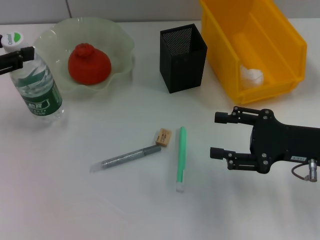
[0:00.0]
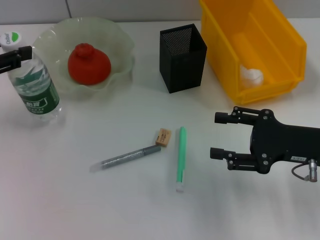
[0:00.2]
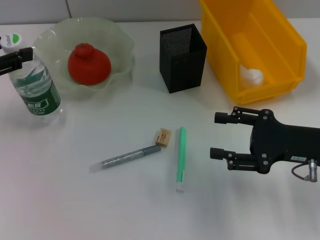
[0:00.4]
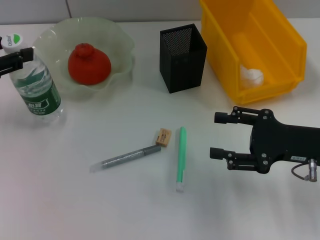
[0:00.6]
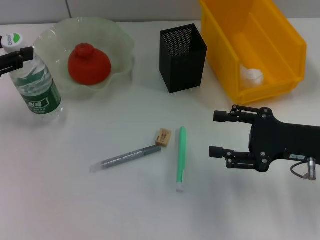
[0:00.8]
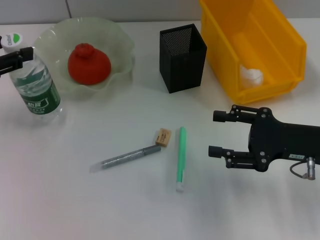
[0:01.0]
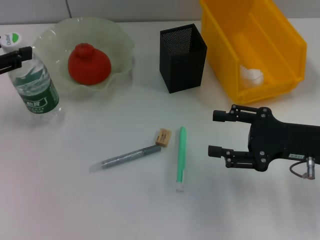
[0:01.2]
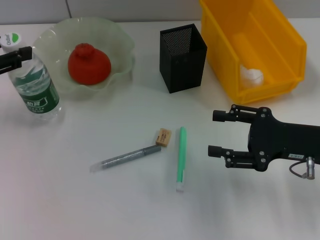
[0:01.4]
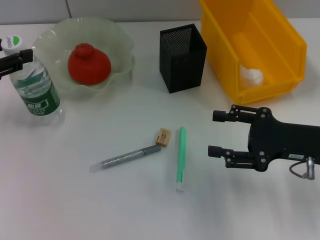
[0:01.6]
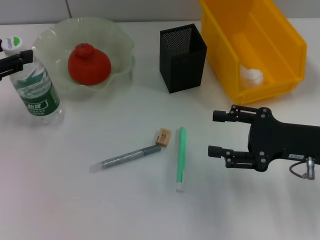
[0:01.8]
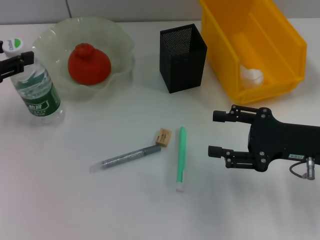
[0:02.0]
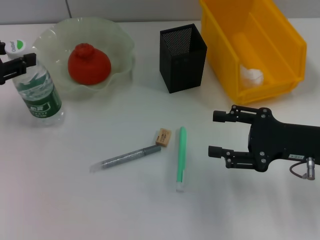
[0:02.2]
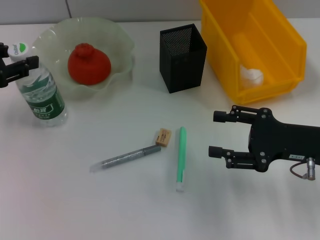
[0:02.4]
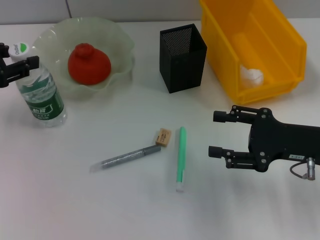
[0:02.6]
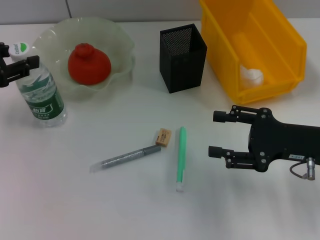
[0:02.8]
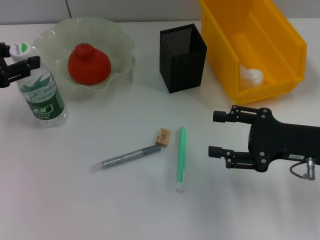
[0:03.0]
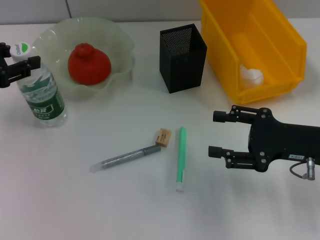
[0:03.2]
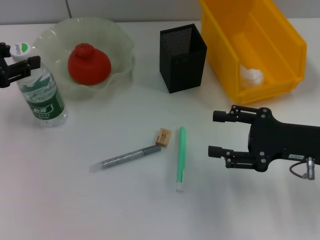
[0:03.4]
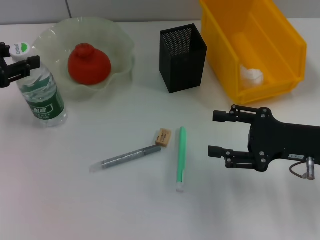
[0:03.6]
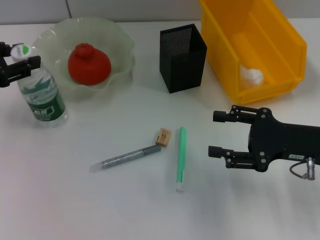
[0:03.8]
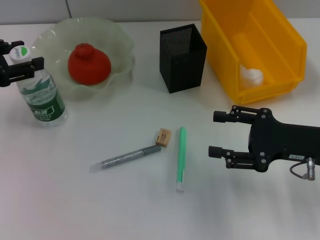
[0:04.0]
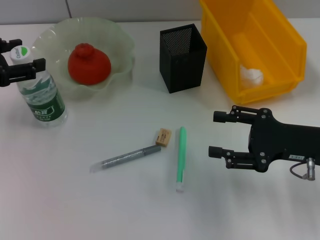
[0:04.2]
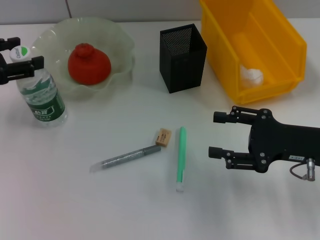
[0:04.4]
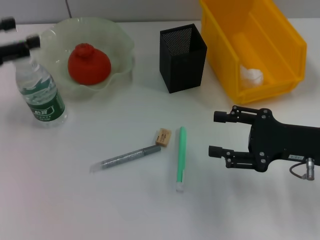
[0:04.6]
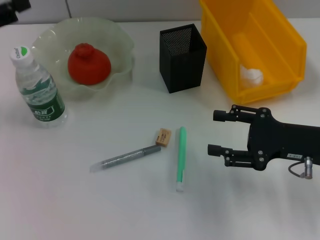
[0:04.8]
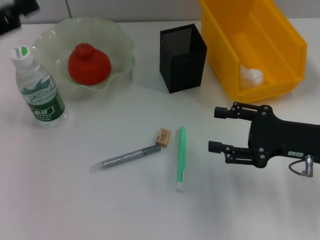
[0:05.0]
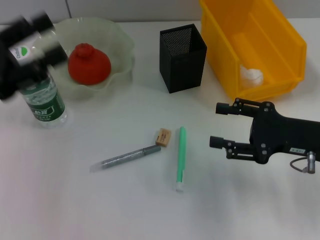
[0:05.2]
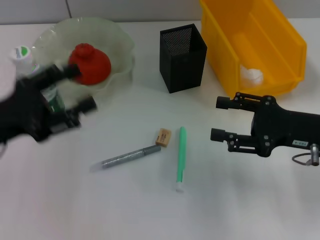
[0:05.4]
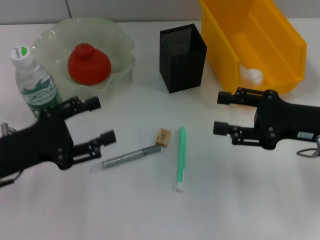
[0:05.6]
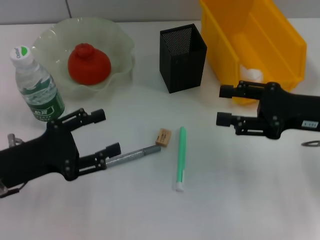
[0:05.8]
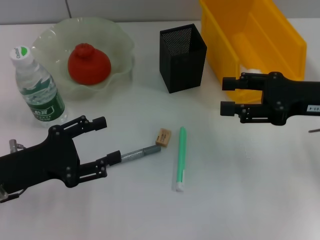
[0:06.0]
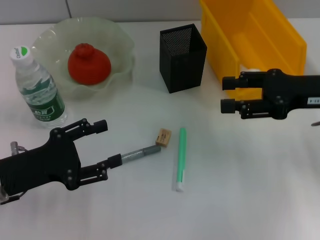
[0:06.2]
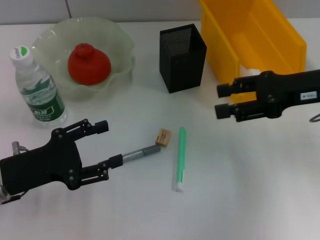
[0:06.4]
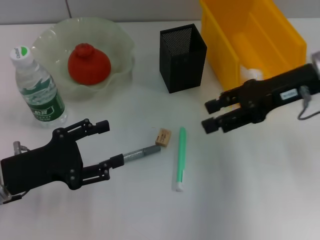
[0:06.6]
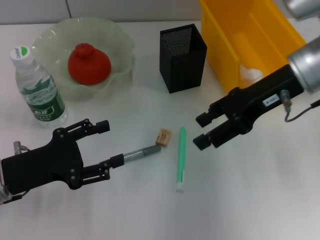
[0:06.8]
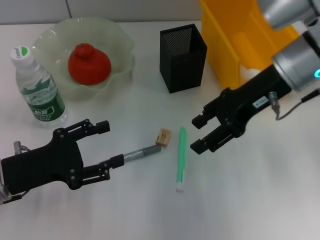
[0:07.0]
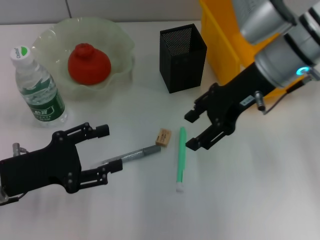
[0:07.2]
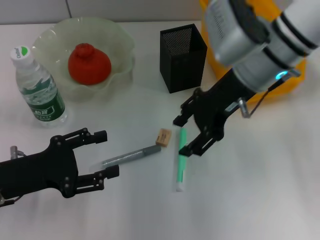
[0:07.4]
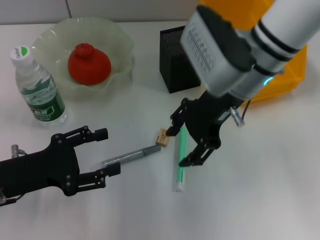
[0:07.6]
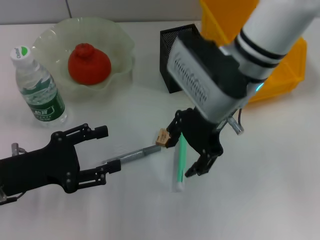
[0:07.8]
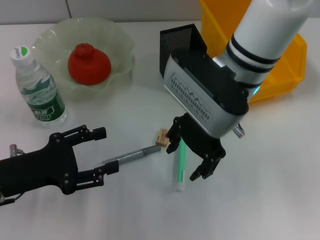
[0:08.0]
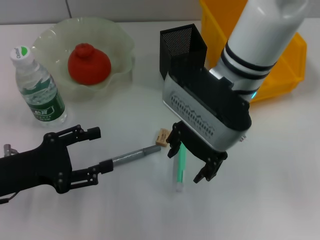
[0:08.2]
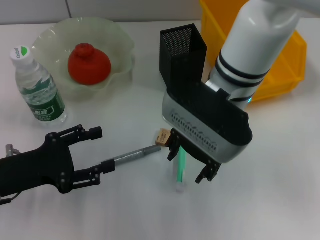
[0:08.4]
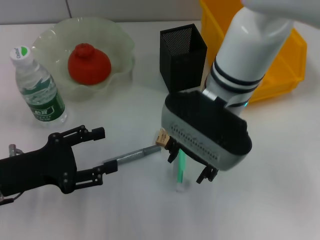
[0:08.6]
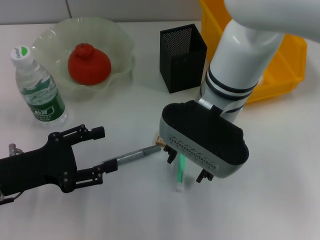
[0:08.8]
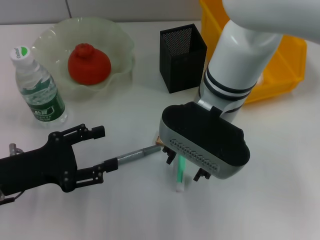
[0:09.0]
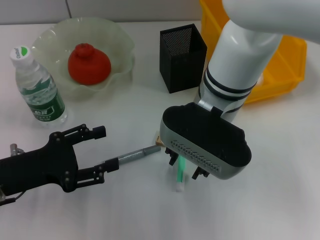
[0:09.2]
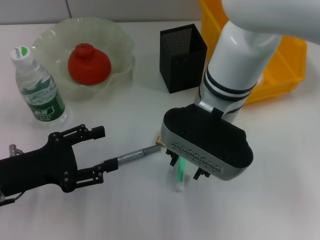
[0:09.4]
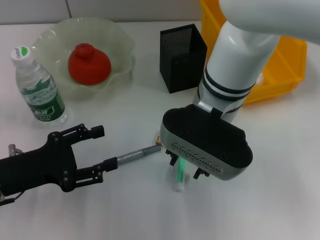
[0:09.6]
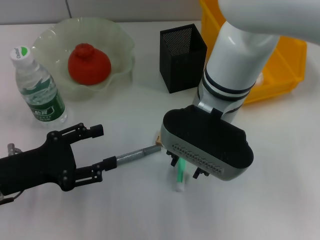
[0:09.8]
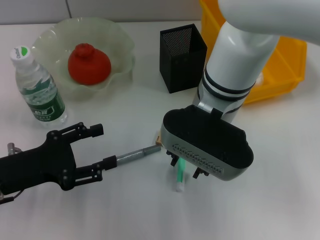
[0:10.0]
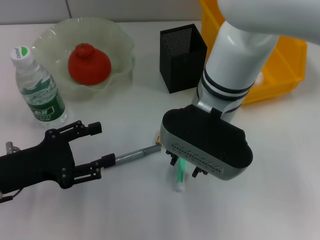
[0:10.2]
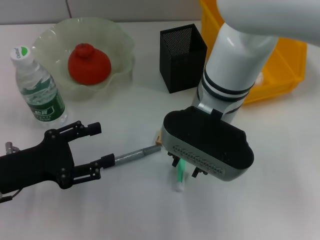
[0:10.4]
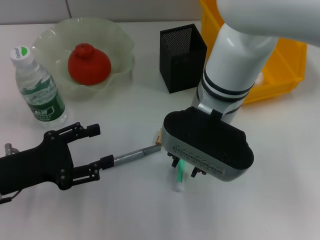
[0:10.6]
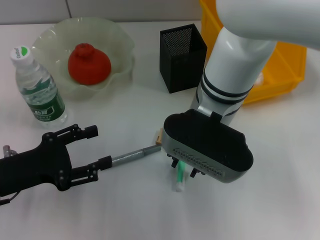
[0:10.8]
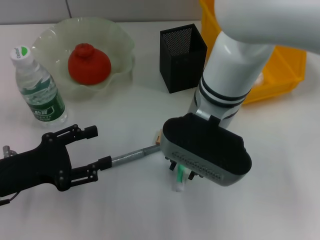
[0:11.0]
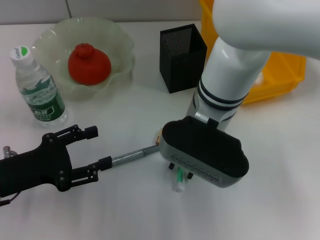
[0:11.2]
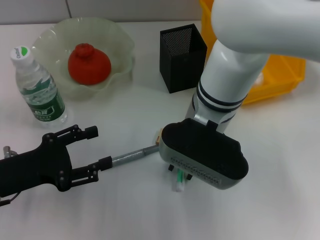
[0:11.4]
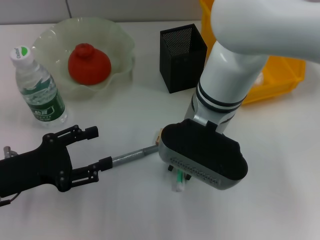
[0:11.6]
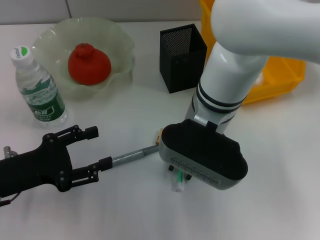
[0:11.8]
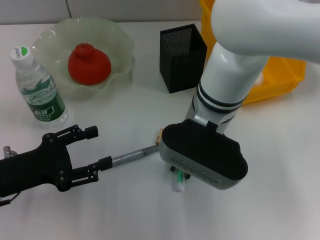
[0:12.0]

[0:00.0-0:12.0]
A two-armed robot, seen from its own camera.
Step, 0:00.0 to 0:04.2: Place the water bottle on the table with the left hand.
0:00.0 to 0:01.6: Both grippers stay about where they are.
0:01.6 to 0:03.0: The grippers stay close to where they were, moving slightly.
0:03.0 to 0:04.4: The left gripper opens.
0:04.4 to 0:06.0: The left gripper shifts approximately 15 cm downward, backward and to the right. Meanwhile the right gripper travels upward by roughly 5 cm.
0:06.0 to 0:07.6: The right gripper travels to the left by approximately 15 cm.
0:07.6 to 0:09.0: The right gripper shifts roughly 5 cm to the left.
0:09.0 to 0:10.4: Both grippers stay put.
0:10.4 to 0:12.0: The grippers move only a little.

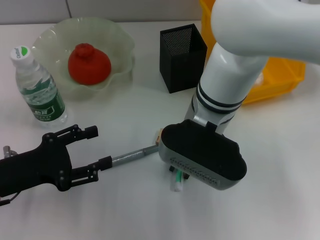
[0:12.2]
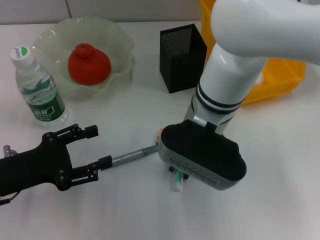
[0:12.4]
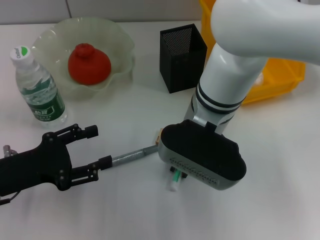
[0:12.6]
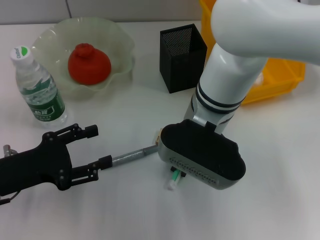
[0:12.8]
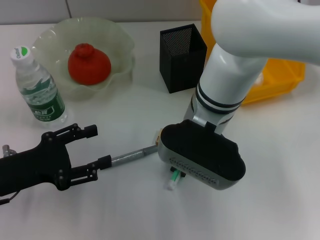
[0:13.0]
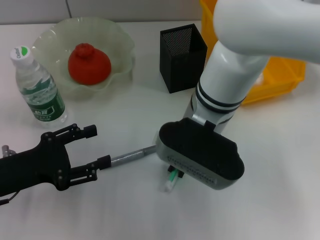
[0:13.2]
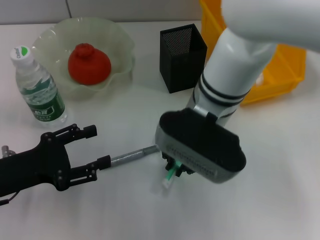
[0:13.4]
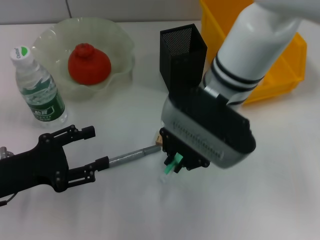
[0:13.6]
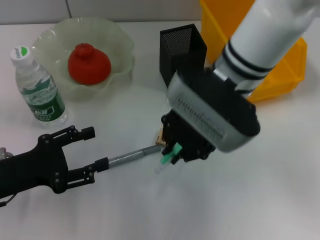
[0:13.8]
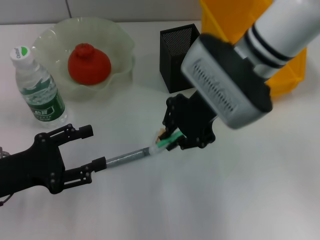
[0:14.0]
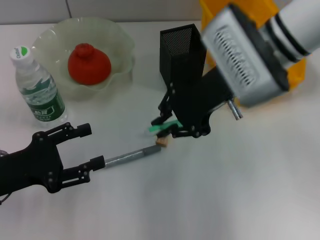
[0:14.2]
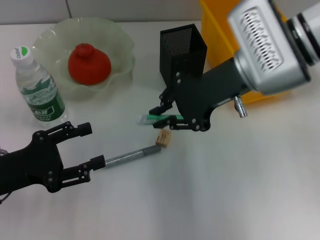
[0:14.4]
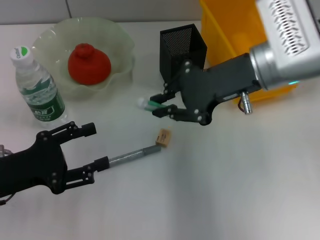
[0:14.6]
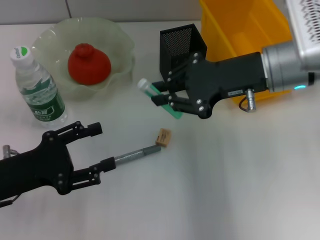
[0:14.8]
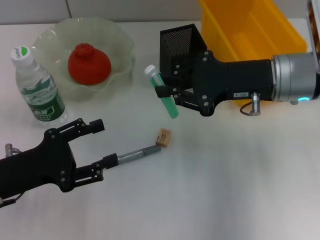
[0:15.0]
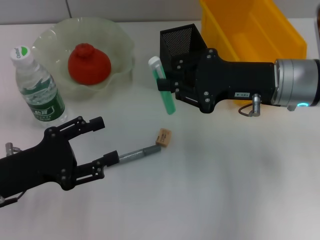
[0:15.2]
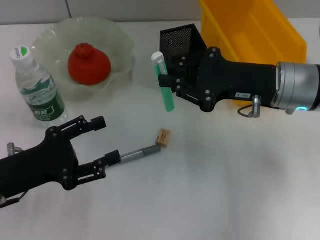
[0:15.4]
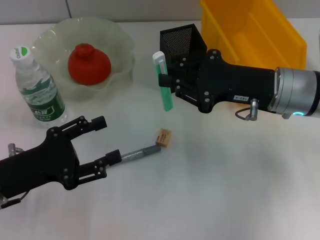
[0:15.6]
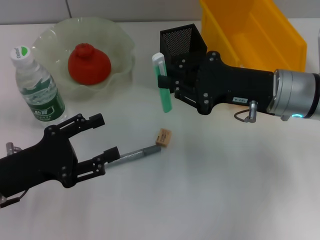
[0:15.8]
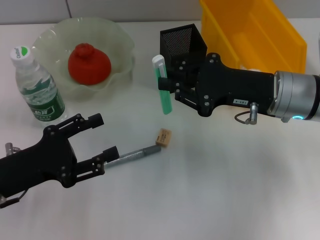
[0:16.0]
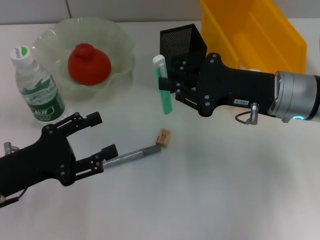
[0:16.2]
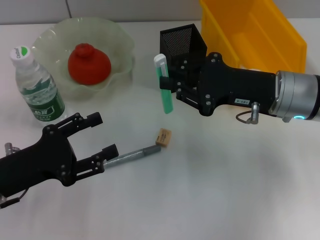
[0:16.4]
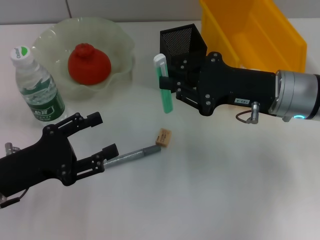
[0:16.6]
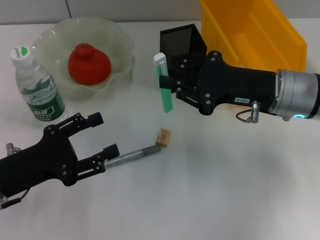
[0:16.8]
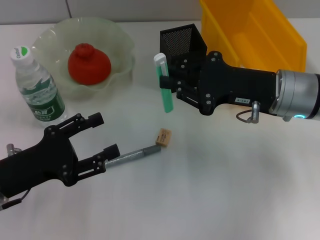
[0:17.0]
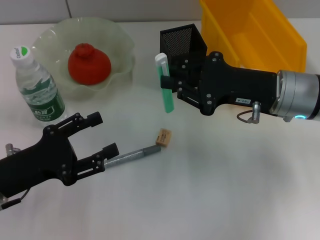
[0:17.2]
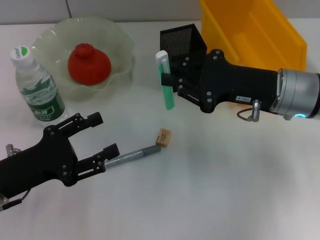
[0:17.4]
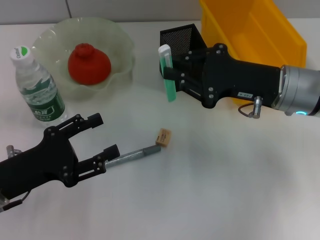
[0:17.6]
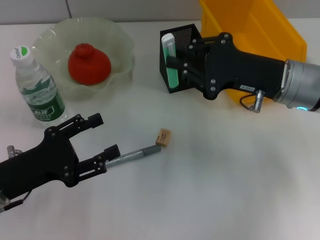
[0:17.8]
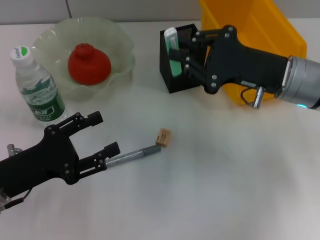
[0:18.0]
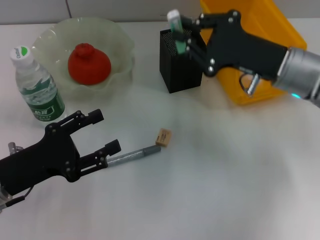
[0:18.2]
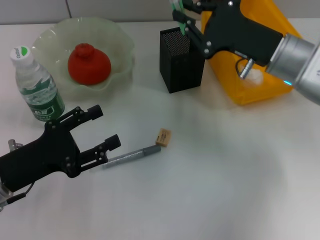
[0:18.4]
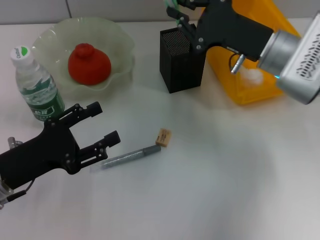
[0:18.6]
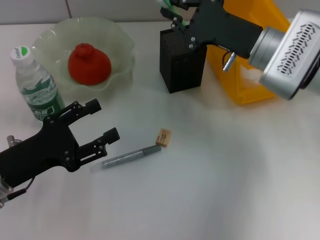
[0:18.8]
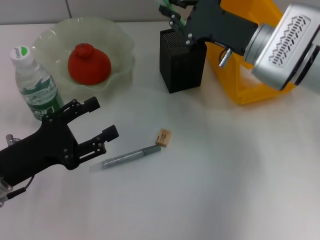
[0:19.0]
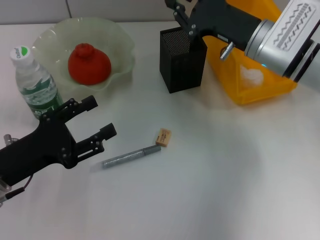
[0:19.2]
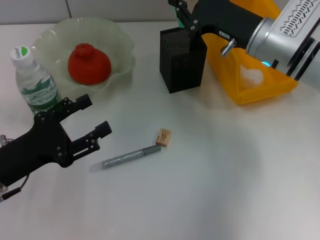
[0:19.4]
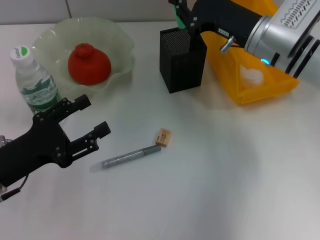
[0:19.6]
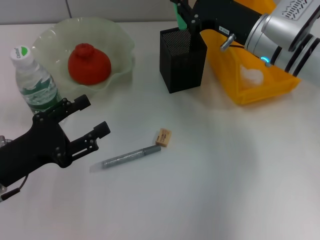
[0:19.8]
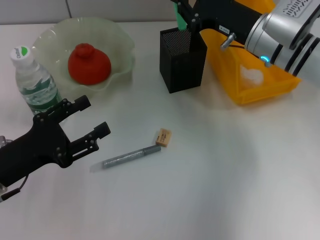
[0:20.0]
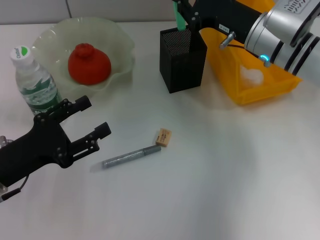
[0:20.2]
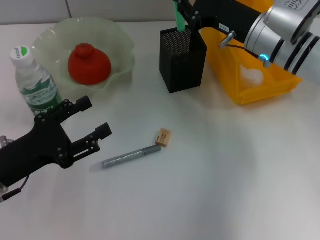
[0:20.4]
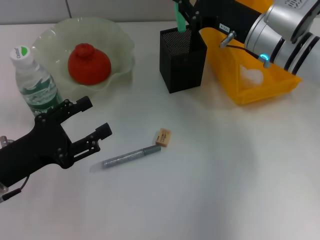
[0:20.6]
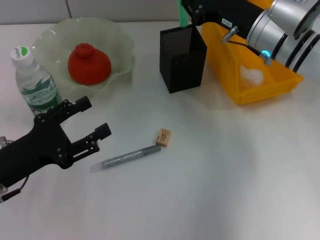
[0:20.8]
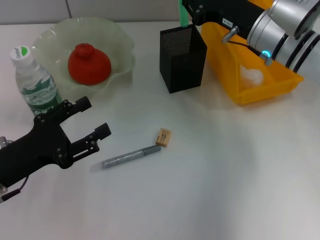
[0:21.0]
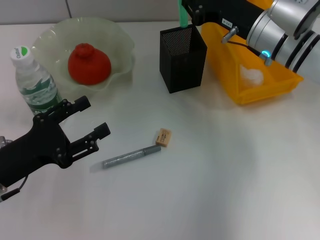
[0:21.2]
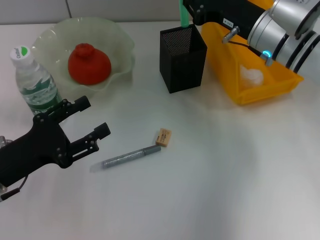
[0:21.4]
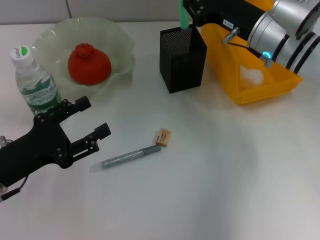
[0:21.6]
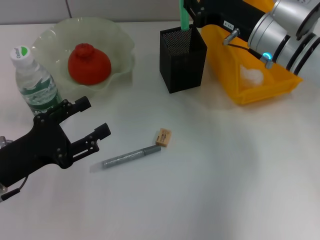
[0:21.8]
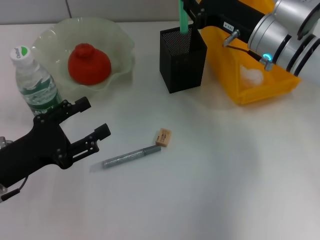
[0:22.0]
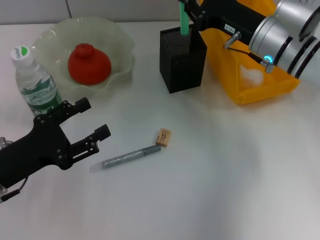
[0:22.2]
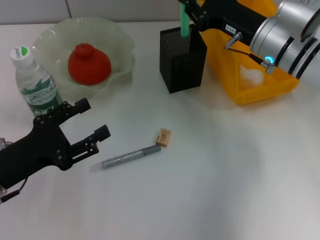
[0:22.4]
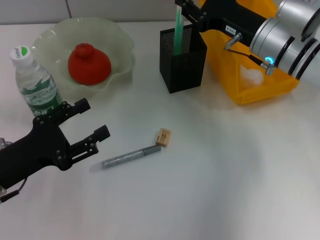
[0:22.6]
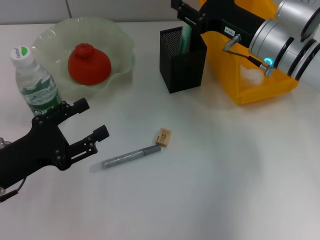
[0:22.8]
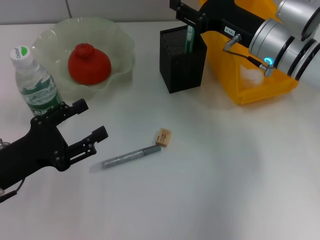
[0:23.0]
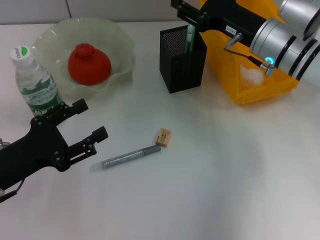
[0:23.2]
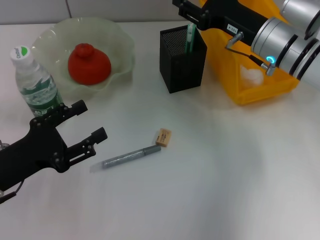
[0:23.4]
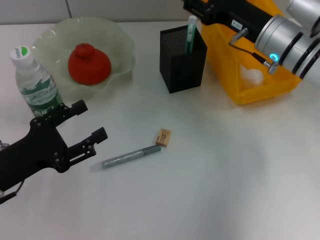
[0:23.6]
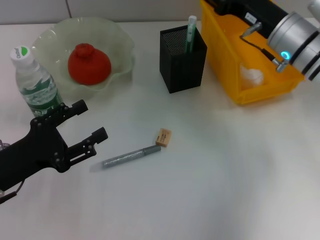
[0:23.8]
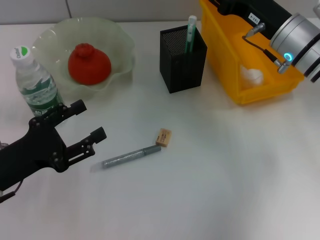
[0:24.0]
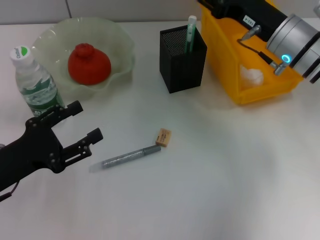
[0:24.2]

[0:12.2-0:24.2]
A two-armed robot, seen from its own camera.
Step, 0:13.0 to 0:22.8: Place the blue utility knife into the pen holder with the right hand.
0:12.2 to 0:13.8: The right gripper shifts by roughly 5 cm.
0:13.8 to 0:15.2: The right gripper goes roughly 10 cm to the right.
0:15.2 to 0:16.6: The grippers move only a little.
0:18.2 to 0:19.8: The right gripper travels forward by about 5 cm.
0:19.8 to 0:22.6: The grippers move only a little.
0:22.6 to 0:24.2: The right gripper opens.
